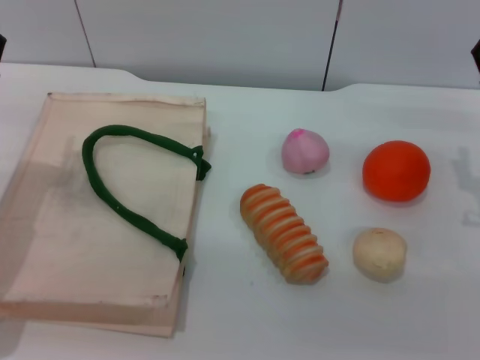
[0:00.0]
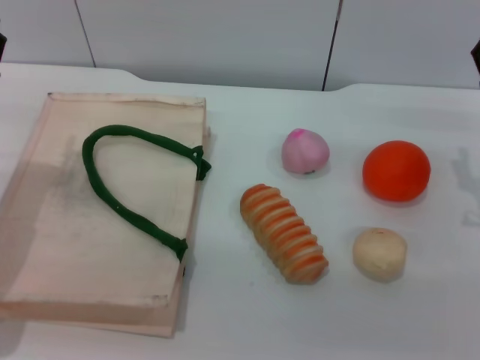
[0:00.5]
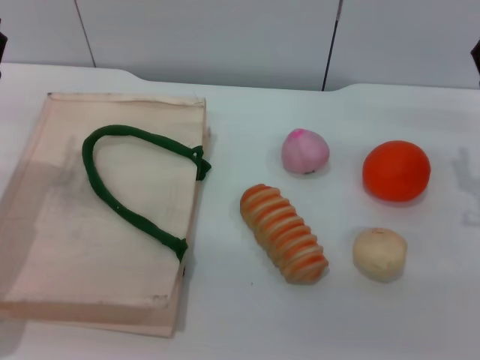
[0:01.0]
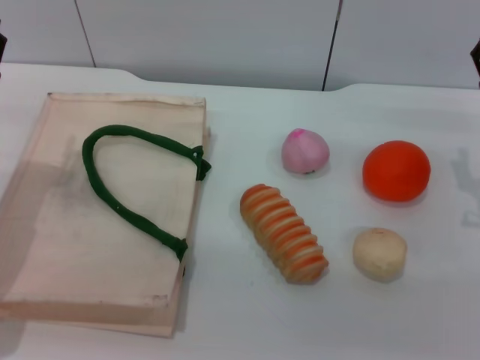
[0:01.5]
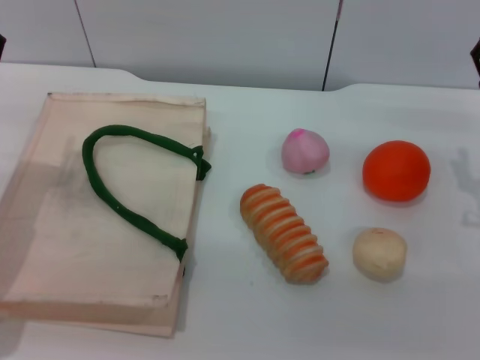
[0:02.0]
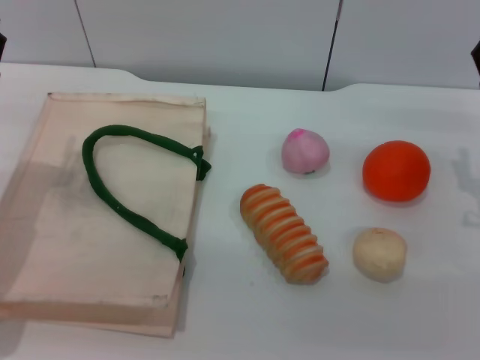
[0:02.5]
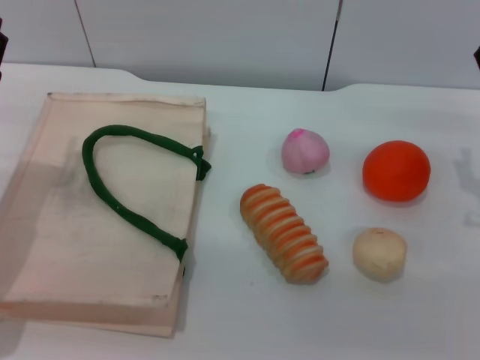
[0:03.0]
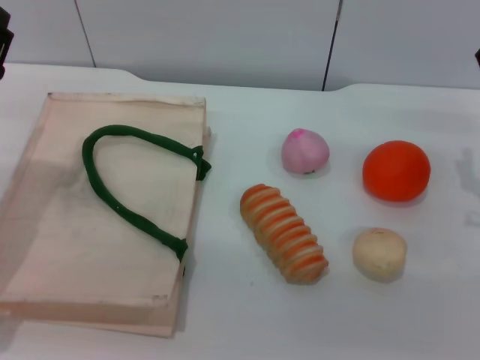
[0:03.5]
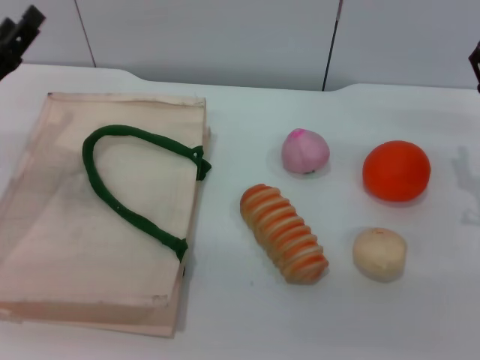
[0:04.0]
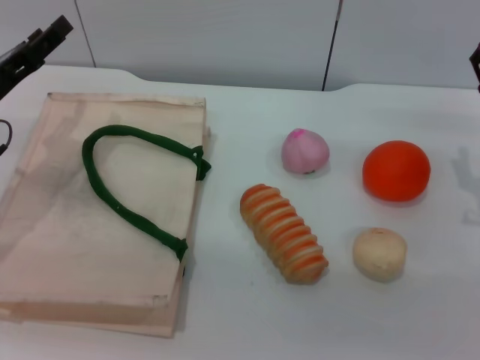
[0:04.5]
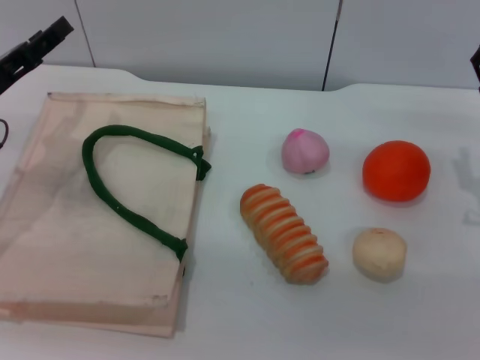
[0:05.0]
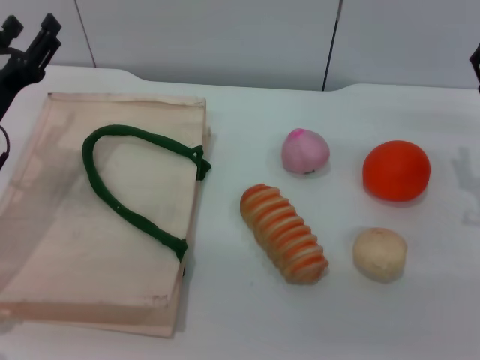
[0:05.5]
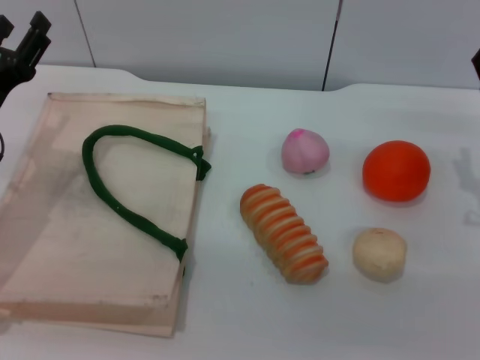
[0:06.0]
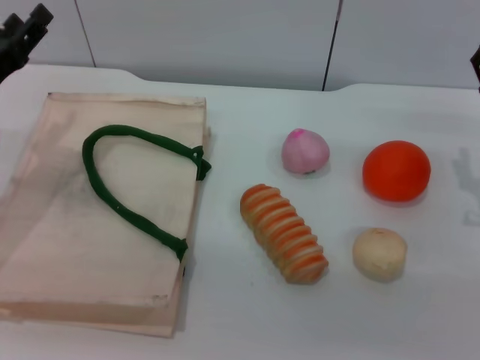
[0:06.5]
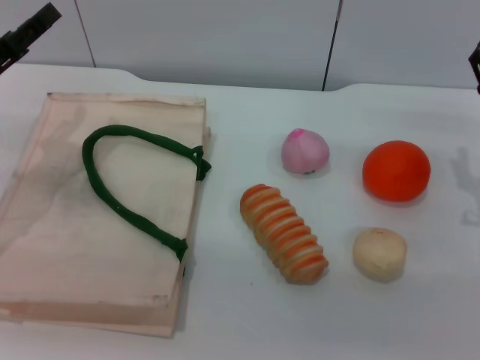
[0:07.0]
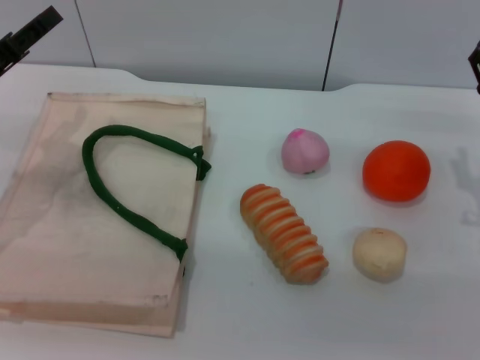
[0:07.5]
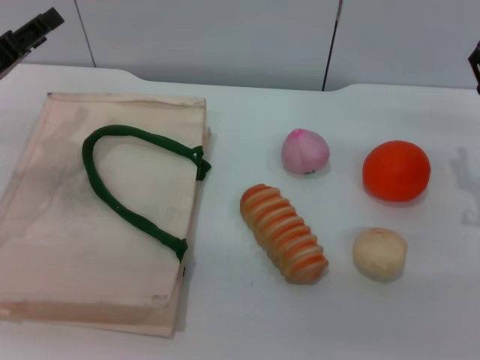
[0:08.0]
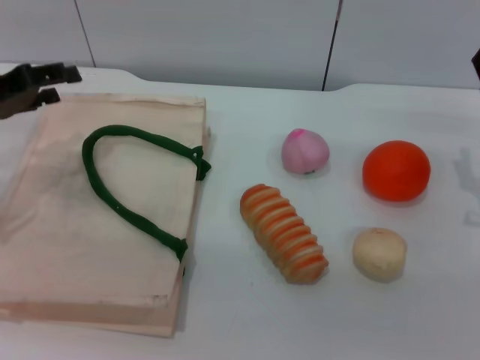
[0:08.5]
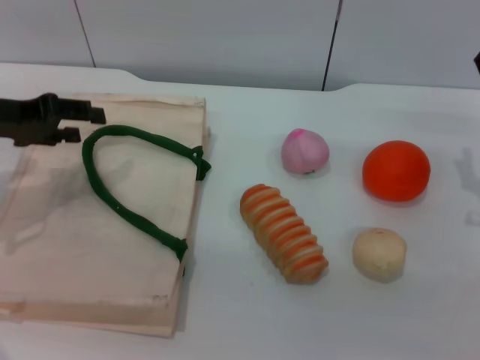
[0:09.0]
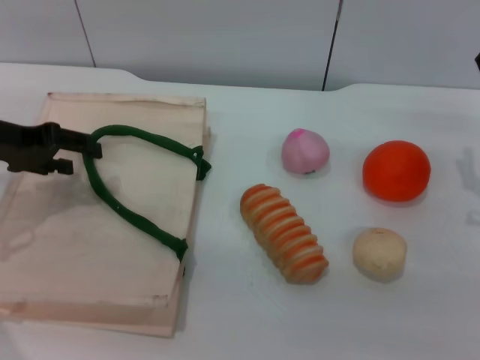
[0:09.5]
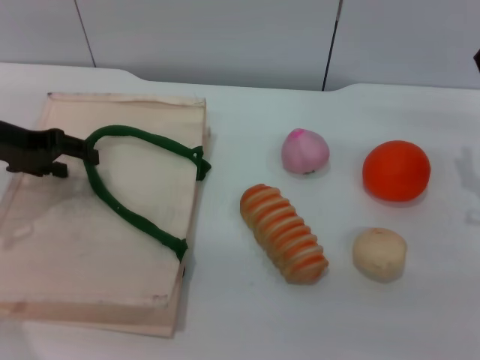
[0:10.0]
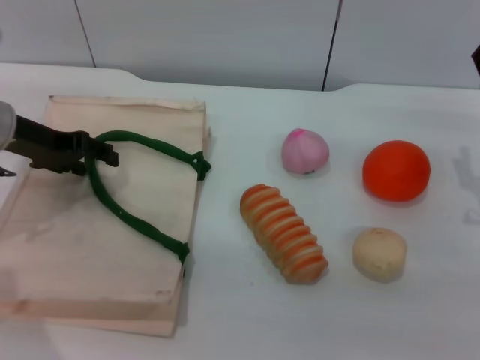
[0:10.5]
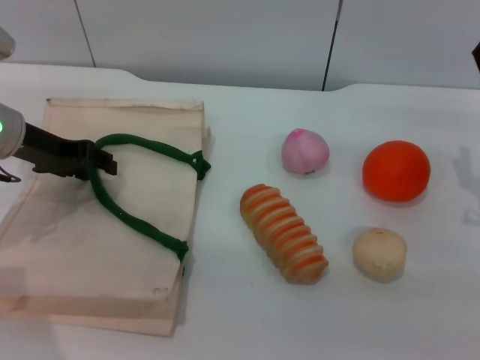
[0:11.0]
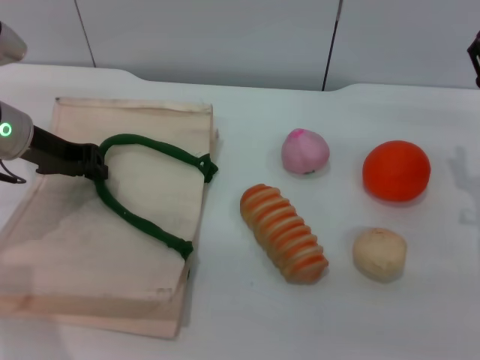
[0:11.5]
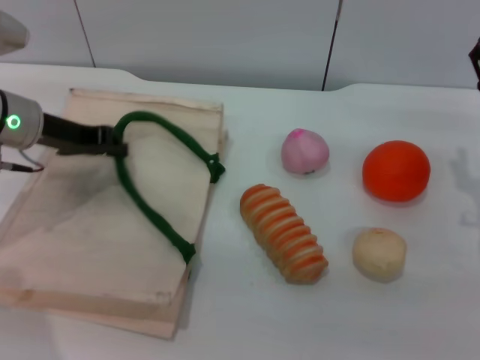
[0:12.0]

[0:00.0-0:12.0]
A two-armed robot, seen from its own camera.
Task of the whole recording: pick up the bread and egg yolk pastry from the table and place it in the white handbag.
0:00.0 to 0:02.0: The two grippers keep their place.
0:06.0 to 0:08.0: The left gripper changes place by approximately 5 cm.
0:10.0 to 0:12.0: The left gripper moves roughly 5 cm, and closes up.

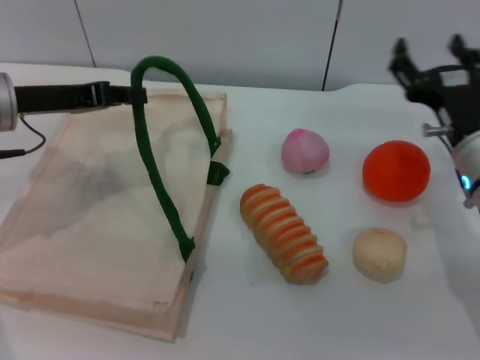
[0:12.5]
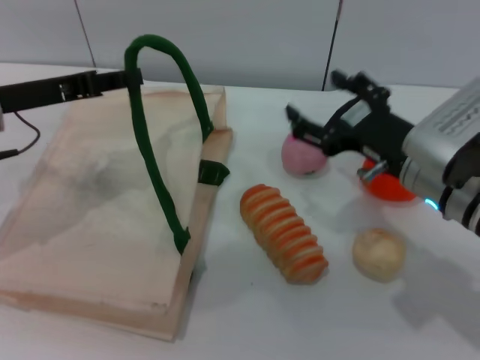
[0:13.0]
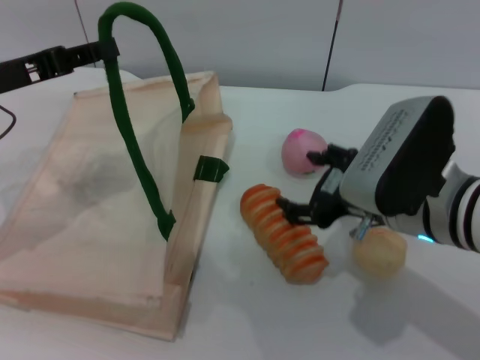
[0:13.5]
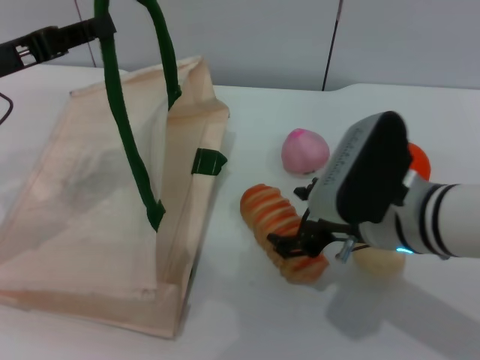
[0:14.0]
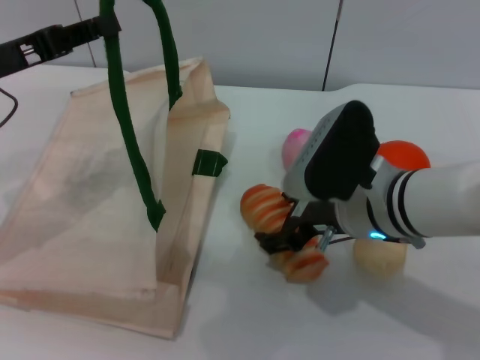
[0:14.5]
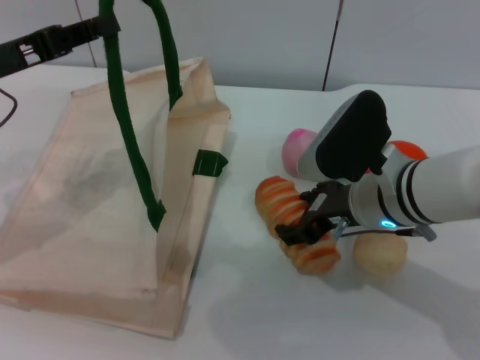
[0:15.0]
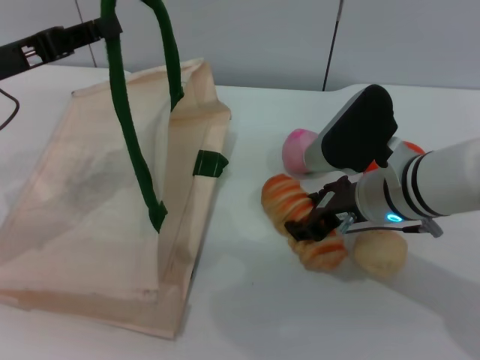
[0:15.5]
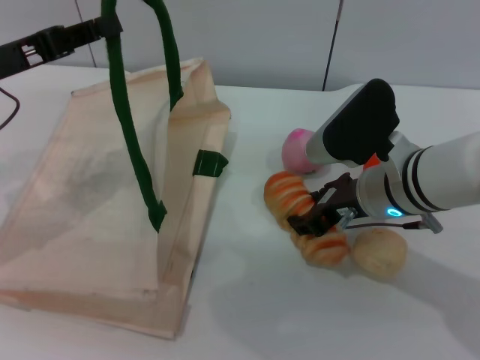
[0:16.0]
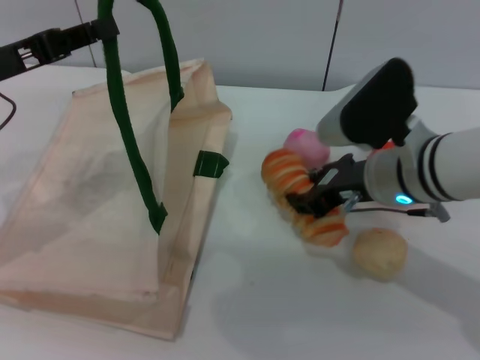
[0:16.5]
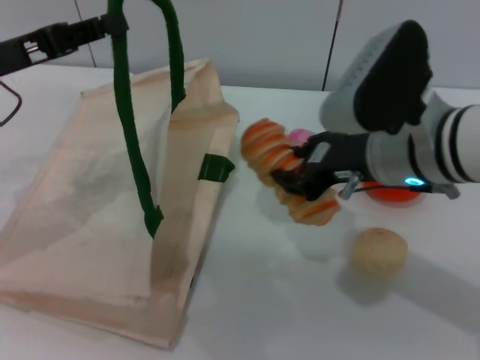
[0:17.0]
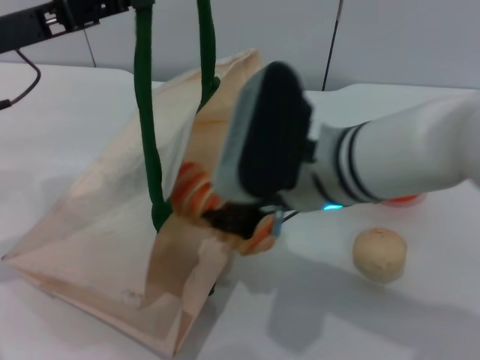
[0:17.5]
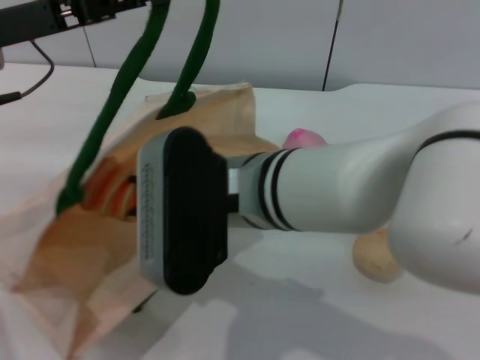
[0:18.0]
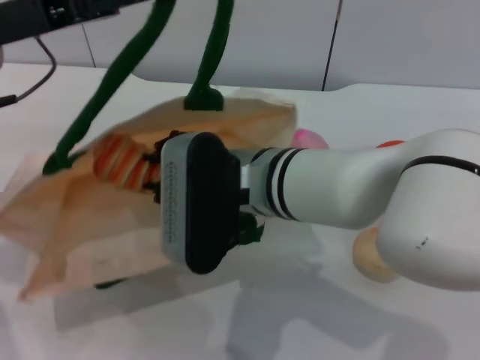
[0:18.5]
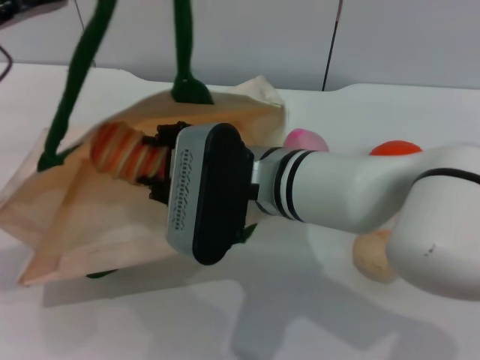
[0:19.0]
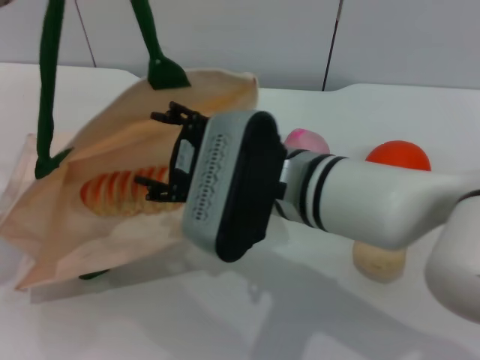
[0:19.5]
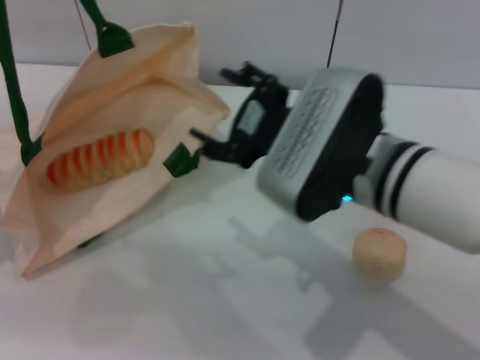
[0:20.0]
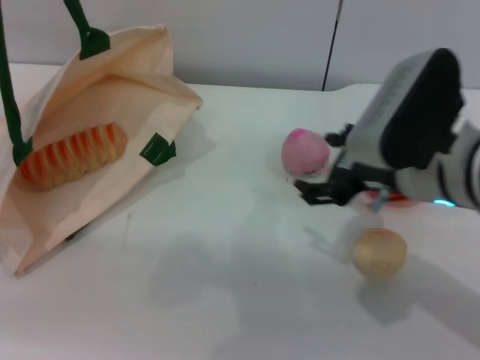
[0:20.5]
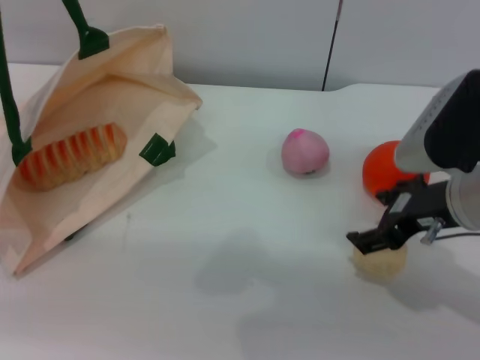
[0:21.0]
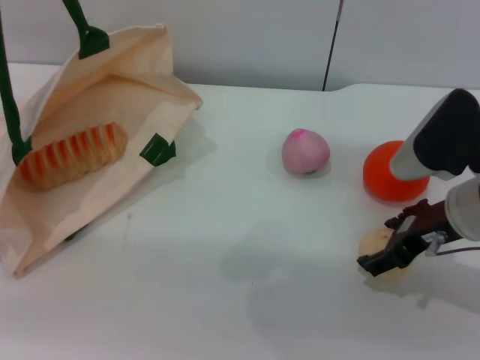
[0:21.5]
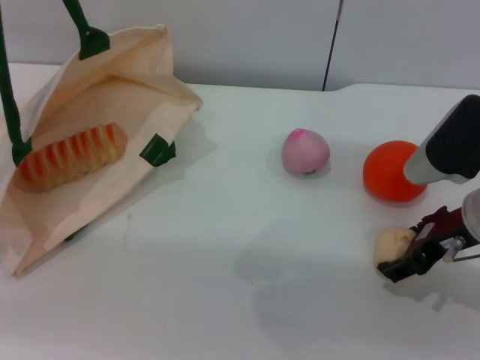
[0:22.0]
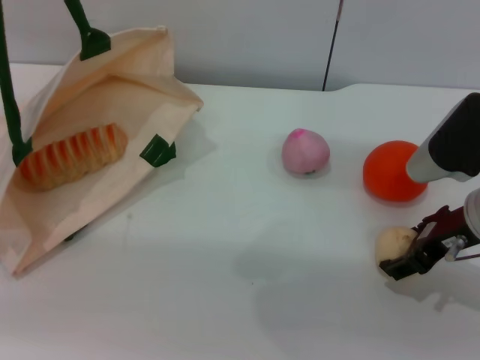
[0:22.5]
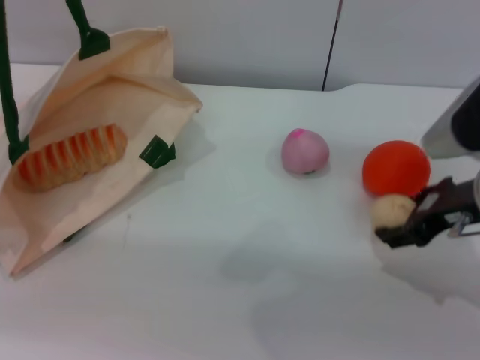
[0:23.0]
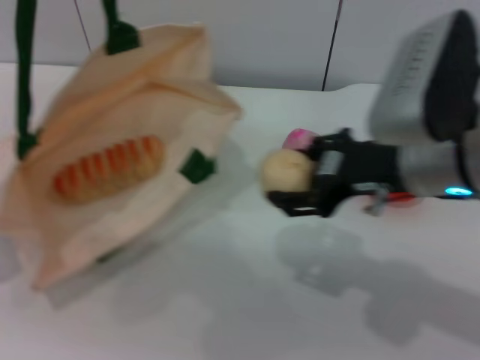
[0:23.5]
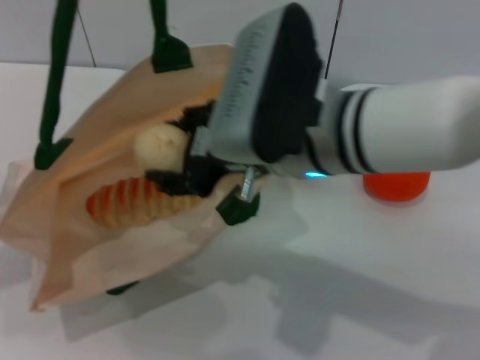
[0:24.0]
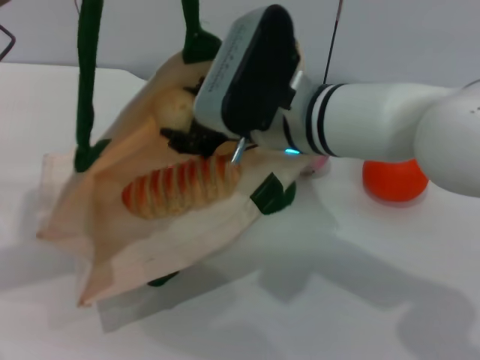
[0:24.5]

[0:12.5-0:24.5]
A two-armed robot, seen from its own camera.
Task of the whole recording: pick up the bread and egg yolk pastry from the table and place it in the white handbag.
Step, 0:12.5 to 0:16.5: Pick up the bread with the right gripper.
Step, 0:17.0 to 0:19.5: Place the bread into the woven bag with the right gripper.
Step, 0:20.0 to 0:23.0: Pick up the egg yolk pastry with the right gripper.
0:12.5 to 0:14.5: The right gripper heads to the left, covering about 10 cm.
0:14.5 to 0:16.5: The right gripper closes.
0:16.5 to 0:18.5: The left gripper moves upward, some 5 cm. Meanwhile the right gripper goes about 15 cm to the left.
0:18.5 to 0:20.5: The right gripper heads to the right, covering roughly 15 cm, and opens up. The left gripper goes roughly 10 cm to the left.
0:20.5 to 0:22.5: The right gripper goes approximately 5 cm to the right.
0:22.5 to 0:24.5: The right gripper moves to the left, roughly 20 cm. Meanwhile the left gripper shifts some 10 cm to the right.

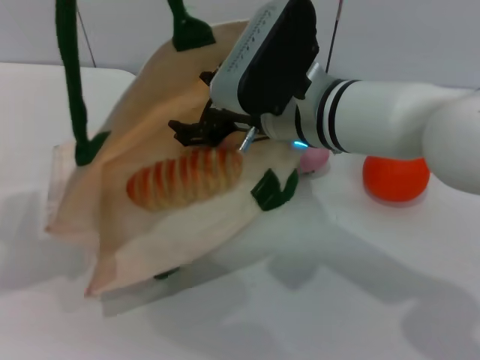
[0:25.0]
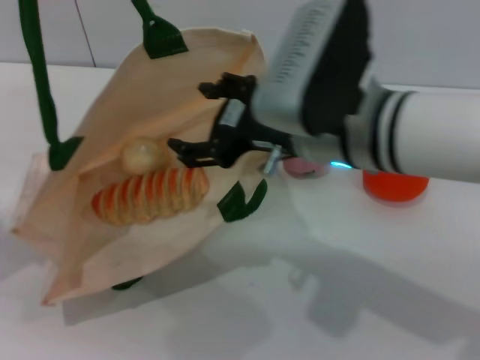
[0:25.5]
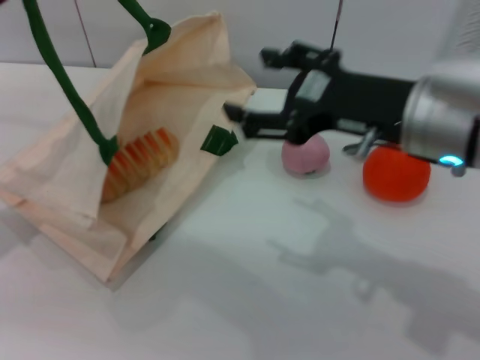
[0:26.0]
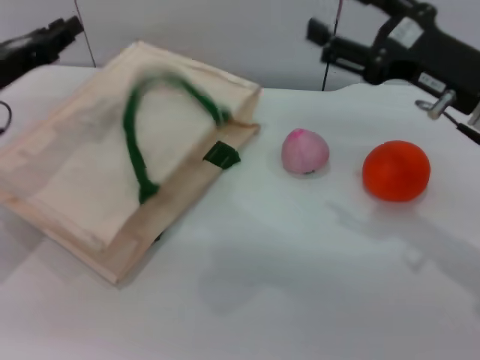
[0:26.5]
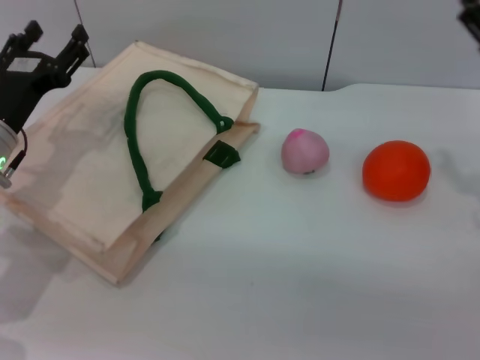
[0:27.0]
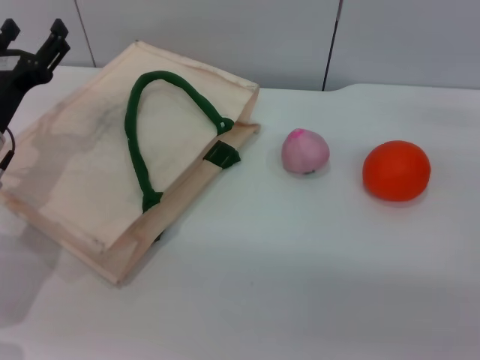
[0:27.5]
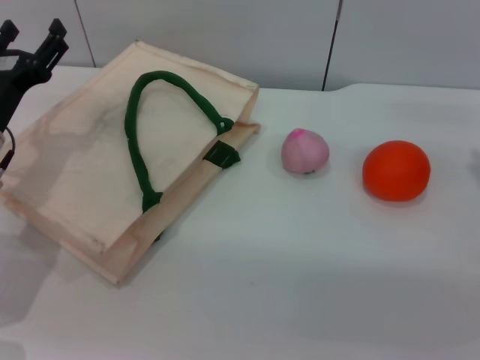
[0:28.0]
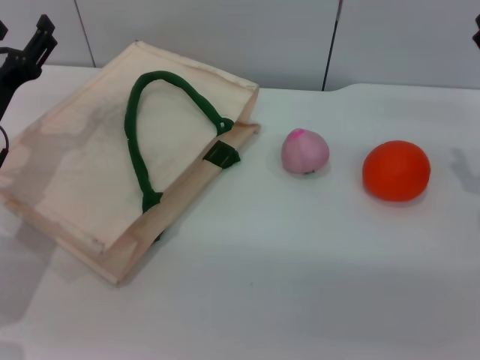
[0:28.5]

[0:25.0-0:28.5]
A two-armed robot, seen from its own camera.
Task of the whole recording: pick up the bread and egg yolk pastry from the table and place it in the white handbag.
Step, 0:25.5 to 0:26.5: Lower the woven bag with the left gripper to close it.
0:25.0 to 0:27.0: The right gripper moves to the right, about 25 cm. Meanwhile the left gripper goes approximately 15 cm downward, and opens up.
0:27.0 to 0:28.5: The grippers make only small movements.
